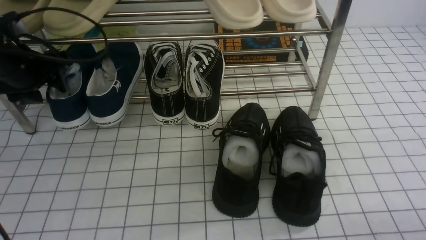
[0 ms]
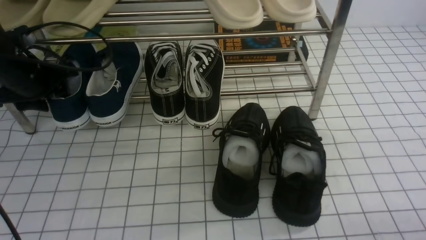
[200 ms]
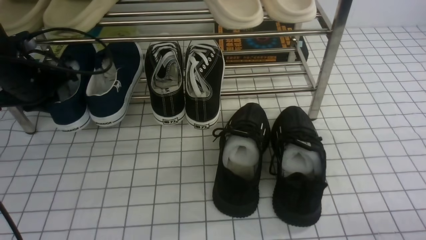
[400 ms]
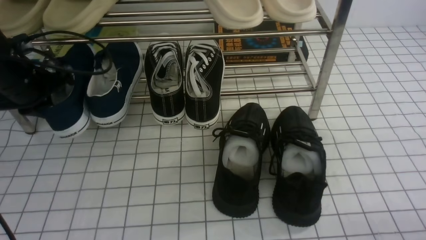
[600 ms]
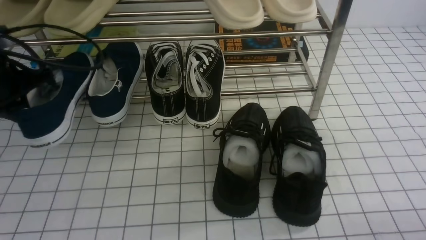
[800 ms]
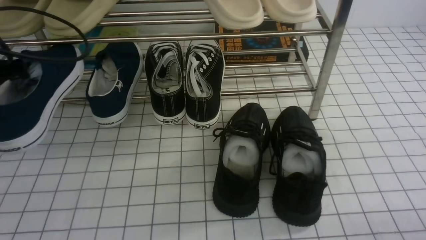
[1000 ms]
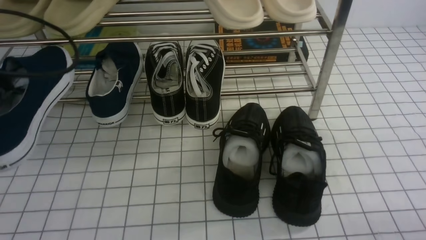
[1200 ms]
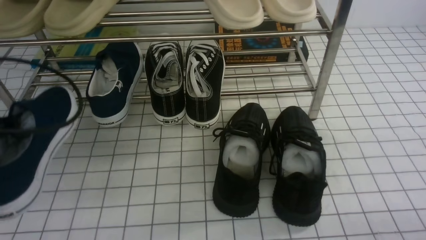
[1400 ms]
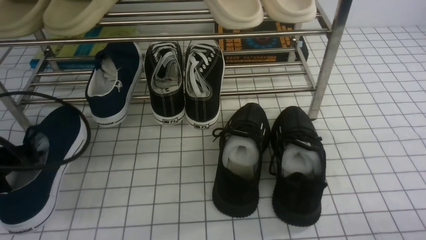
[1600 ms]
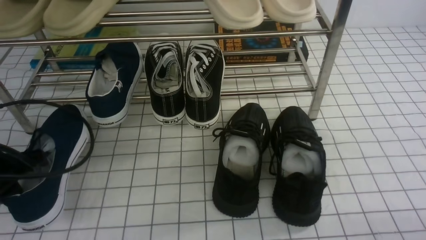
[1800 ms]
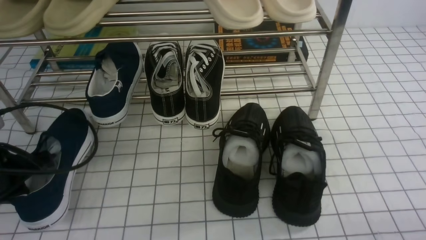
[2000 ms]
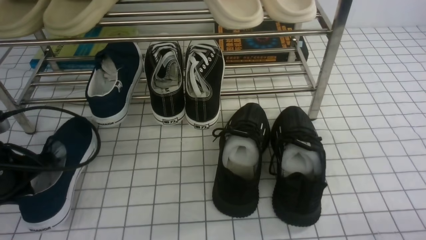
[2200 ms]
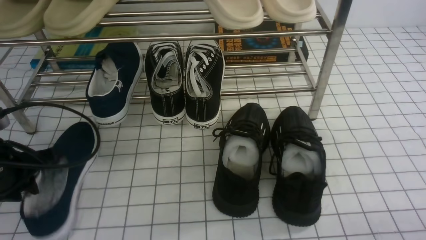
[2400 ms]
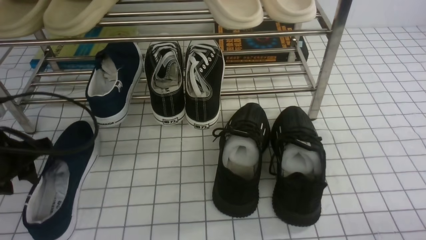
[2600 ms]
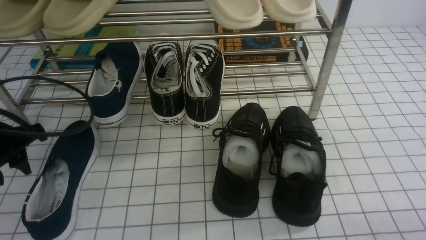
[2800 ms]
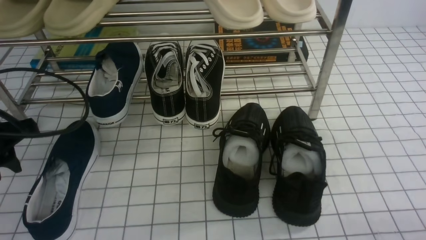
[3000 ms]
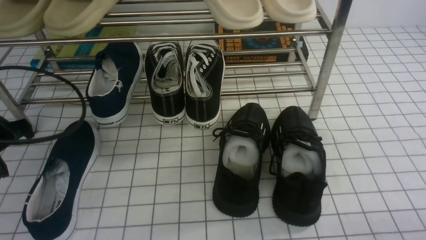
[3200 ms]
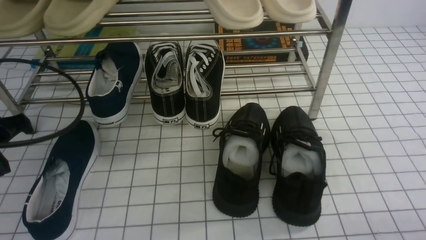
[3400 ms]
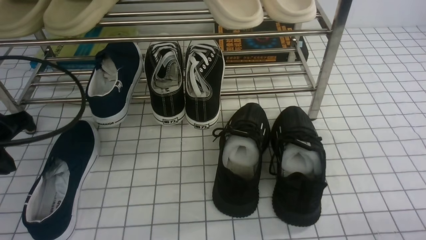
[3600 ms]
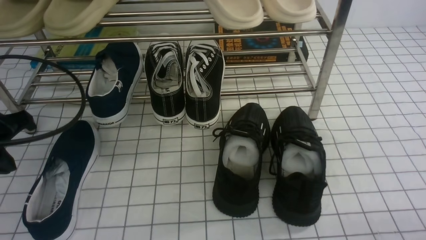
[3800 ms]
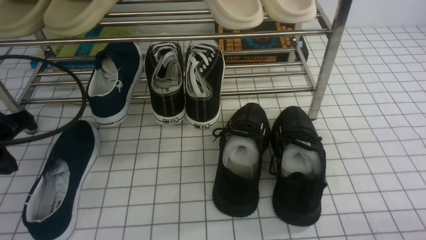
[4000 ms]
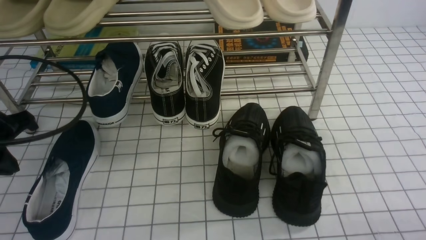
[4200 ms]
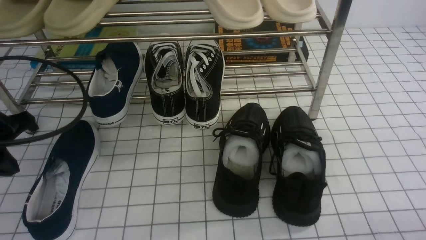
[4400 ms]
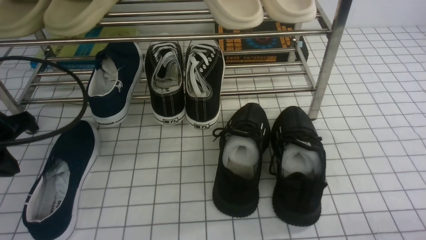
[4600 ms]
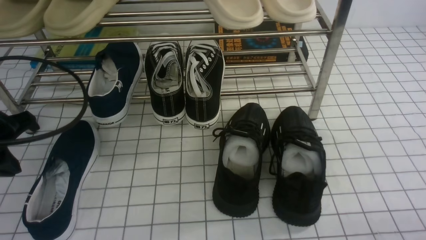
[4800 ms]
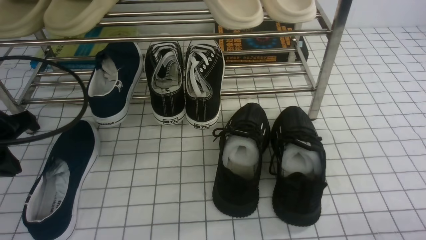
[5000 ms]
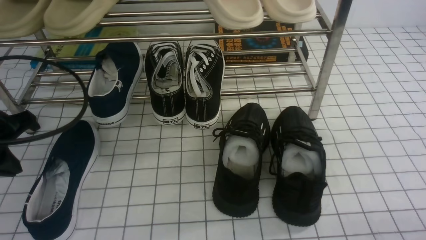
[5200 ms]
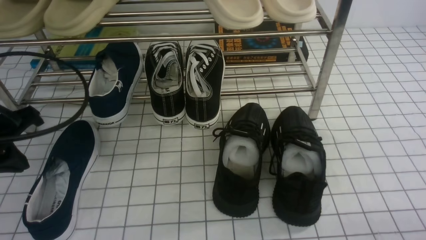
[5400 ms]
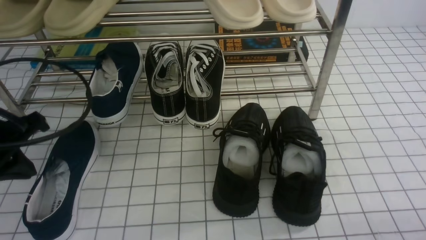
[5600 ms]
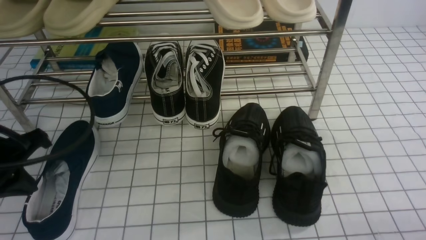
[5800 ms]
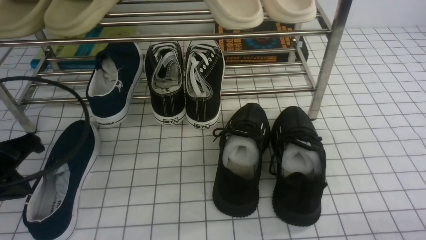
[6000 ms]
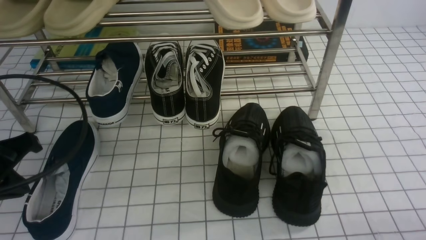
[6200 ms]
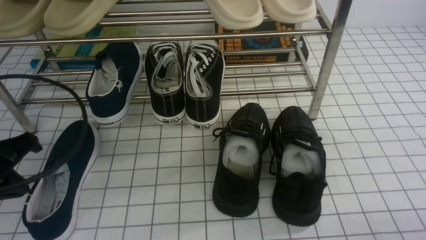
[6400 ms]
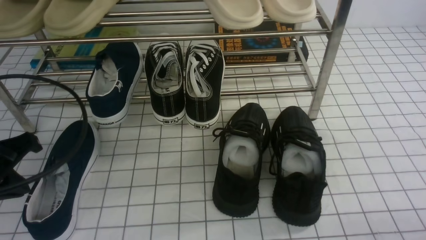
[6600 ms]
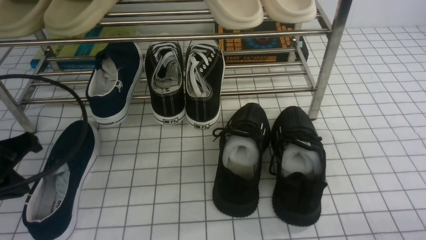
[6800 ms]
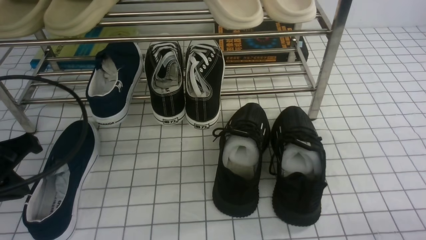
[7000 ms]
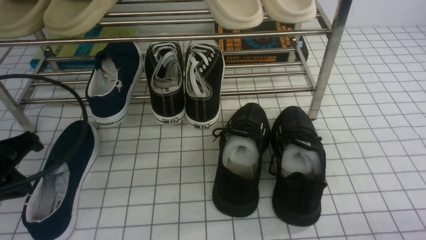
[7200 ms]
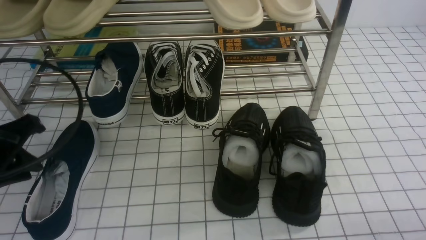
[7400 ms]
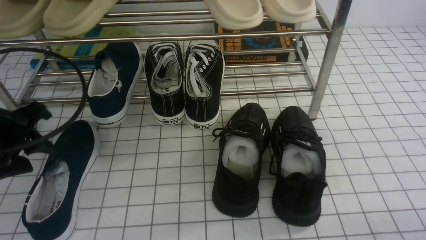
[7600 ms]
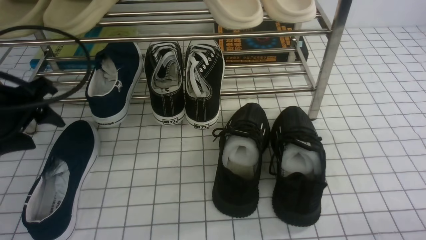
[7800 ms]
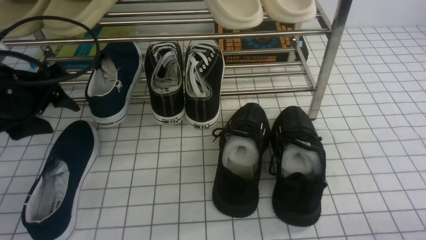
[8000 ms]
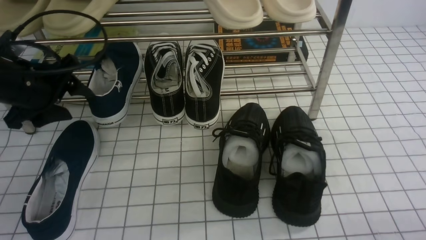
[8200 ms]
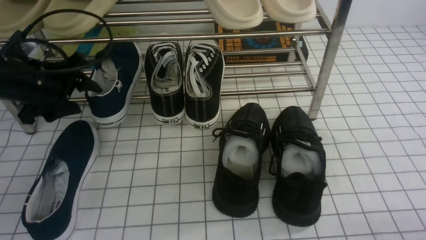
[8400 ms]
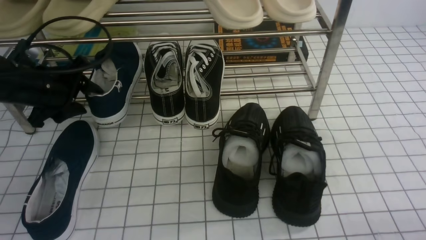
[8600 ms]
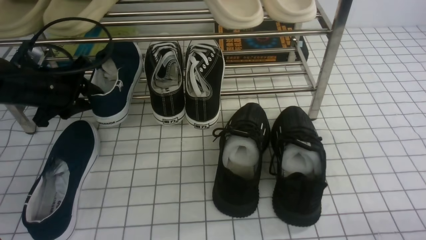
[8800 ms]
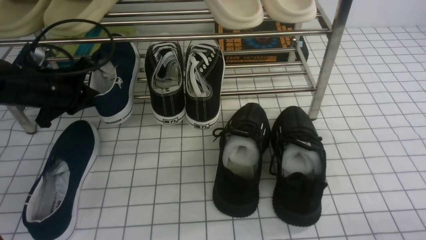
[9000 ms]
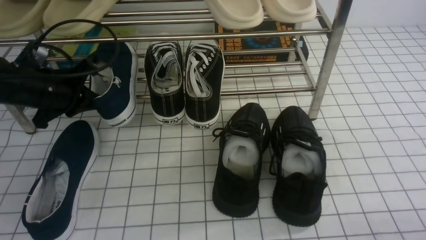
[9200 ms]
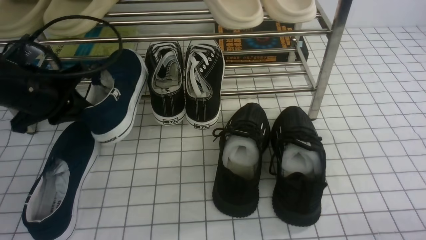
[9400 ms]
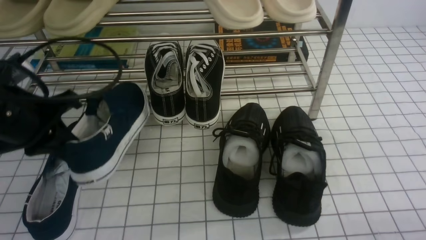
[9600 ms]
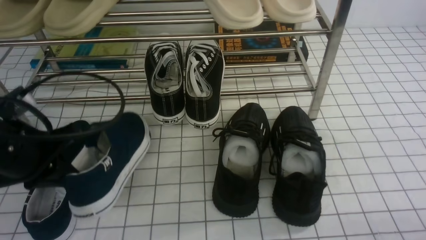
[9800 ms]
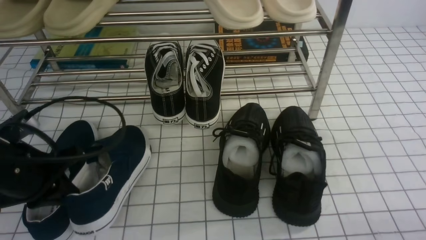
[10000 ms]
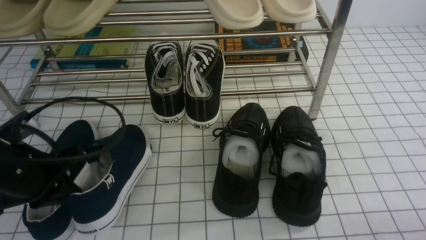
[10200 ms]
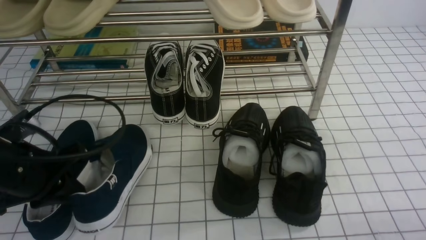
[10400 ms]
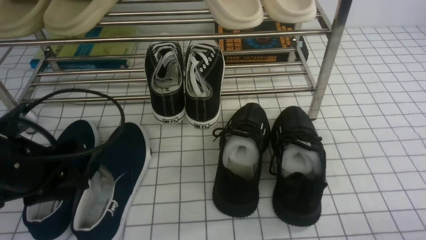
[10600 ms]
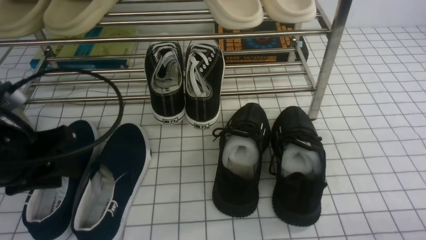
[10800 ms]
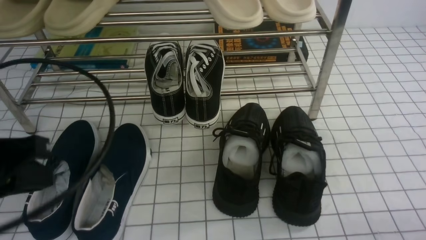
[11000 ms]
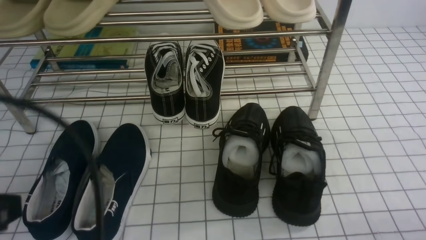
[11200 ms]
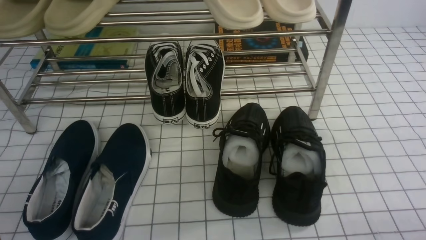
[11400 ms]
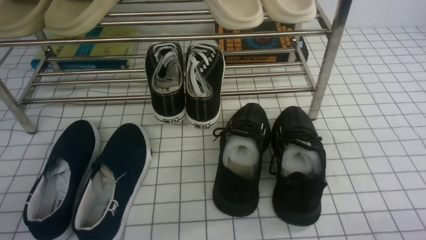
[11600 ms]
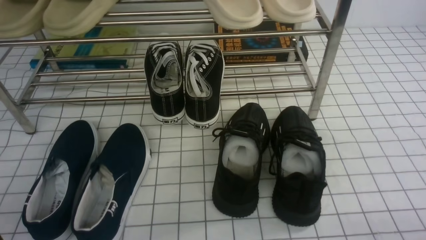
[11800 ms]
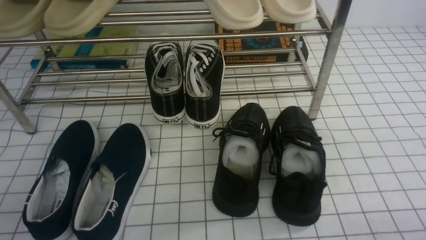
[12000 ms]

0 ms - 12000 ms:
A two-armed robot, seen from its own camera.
Step, 600 ms - 2600 ms: Use your left arm to remove the clamped shoe from the shoe rack and put it down.
Step, 2800 ms - 9000 ms: use the left arm to clamp a shoe on the left side of the shoe rack.
Step, 9200 ms - 10800 ms: Use your left arm to remove the clamped shoe from the shoe rack and put it down.
0 ms - 1600 ms: The left gripper shifts about 15 cm backward, and closes.
1600 ms - 3000 ms: The grippers move only a little.
3000 ms - 4400 ms: The left gripper closes.
4400 ms - 6000 ms: The grippers move only a little.
6000 ms - 7600 ms: The left gripper opens.
7600 ms - 9000 ms: The left gripper is displaced forward and downward by approximately 15 cm, and closes.
9000 ms - 10400 ms: The left gripper is displaced backward by approximately 15 cm.
10400 ms - 12000 ms: The left gripper goes some 25 cm backward.

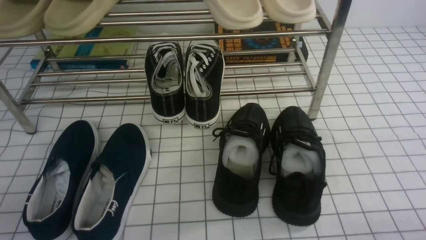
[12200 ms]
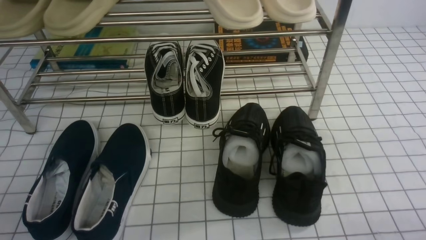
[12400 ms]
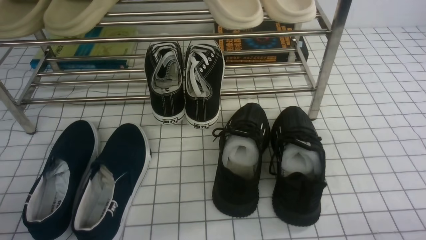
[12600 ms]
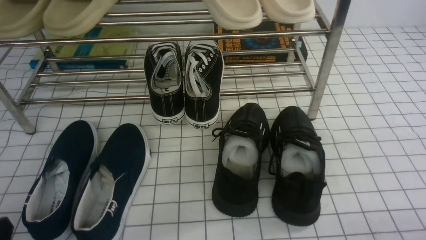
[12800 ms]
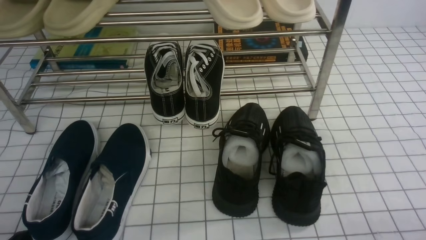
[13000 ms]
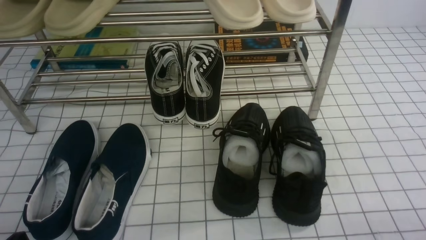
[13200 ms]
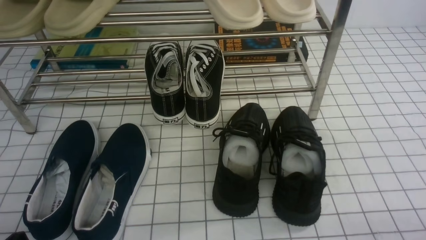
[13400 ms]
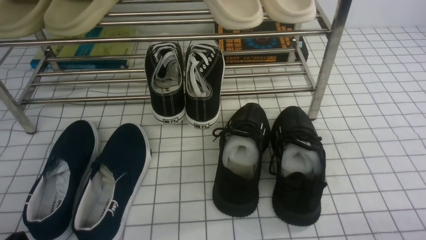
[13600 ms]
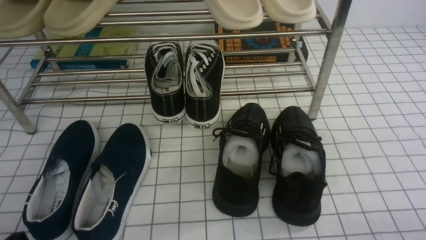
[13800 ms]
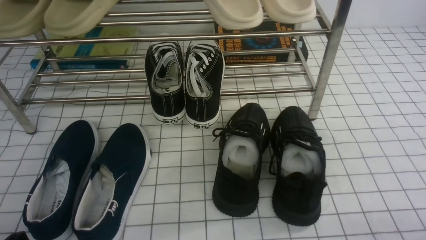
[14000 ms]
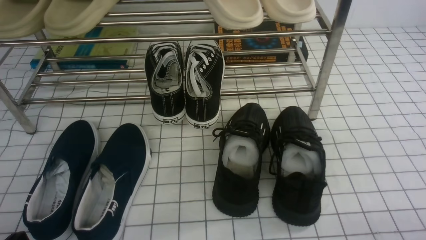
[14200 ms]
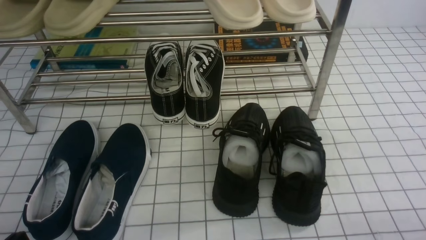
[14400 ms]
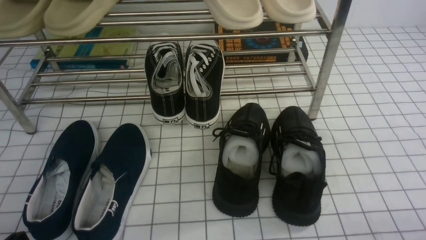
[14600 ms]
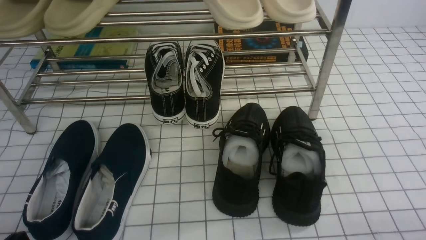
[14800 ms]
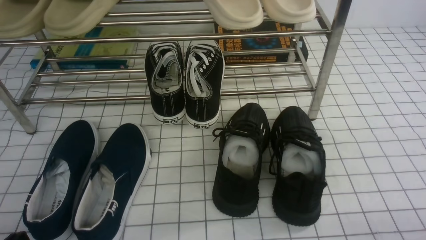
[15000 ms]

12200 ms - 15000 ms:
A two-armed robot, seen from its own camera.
13600 ms - 15000 ms: The two grippers keep their place.
